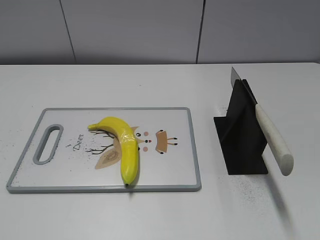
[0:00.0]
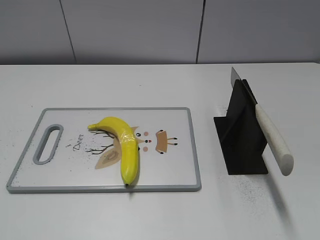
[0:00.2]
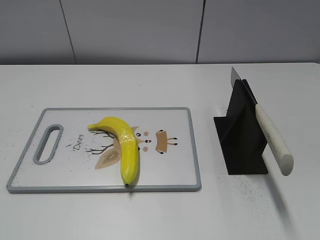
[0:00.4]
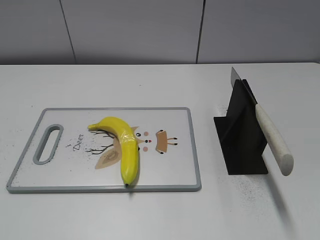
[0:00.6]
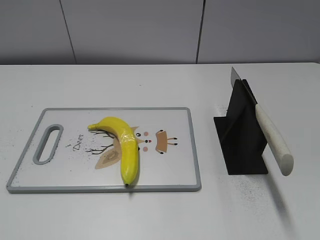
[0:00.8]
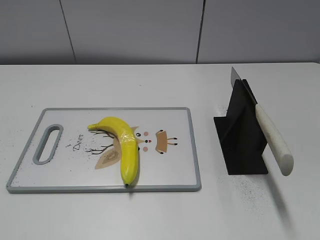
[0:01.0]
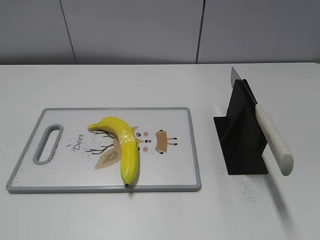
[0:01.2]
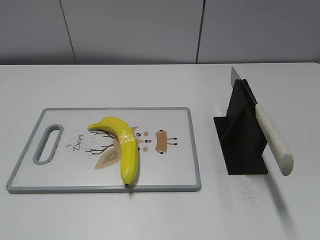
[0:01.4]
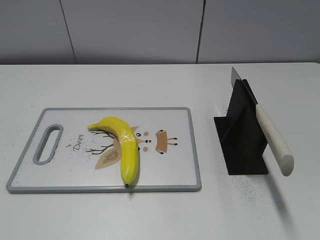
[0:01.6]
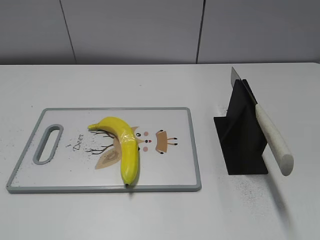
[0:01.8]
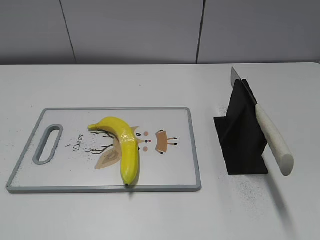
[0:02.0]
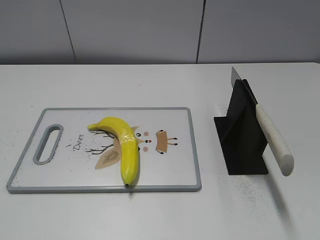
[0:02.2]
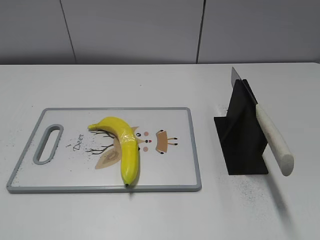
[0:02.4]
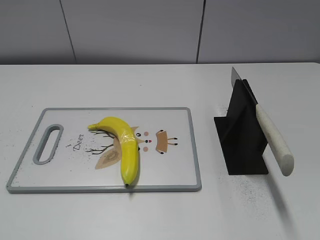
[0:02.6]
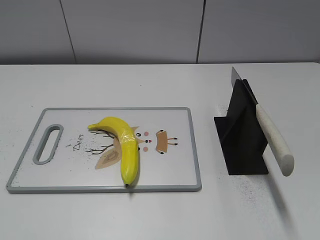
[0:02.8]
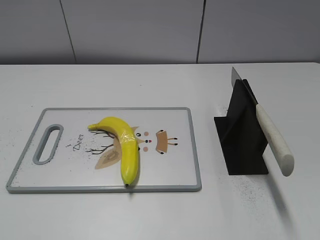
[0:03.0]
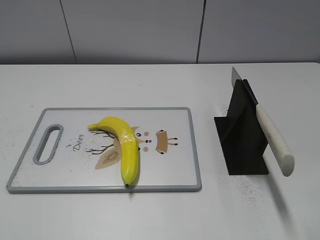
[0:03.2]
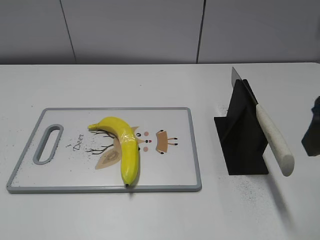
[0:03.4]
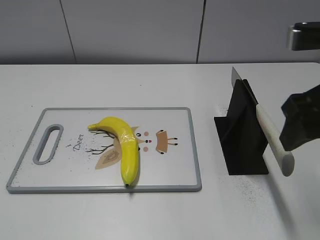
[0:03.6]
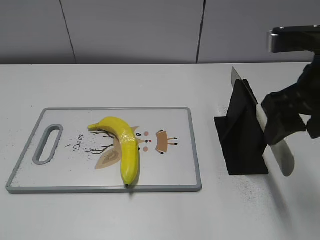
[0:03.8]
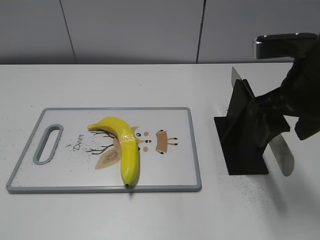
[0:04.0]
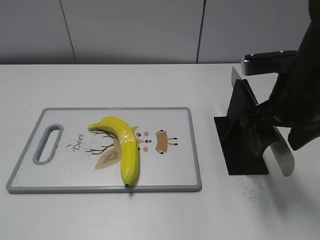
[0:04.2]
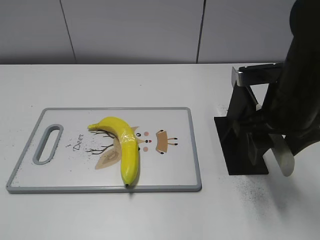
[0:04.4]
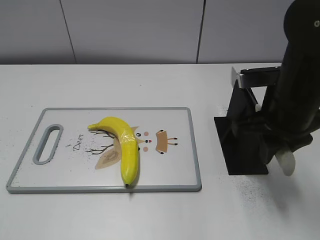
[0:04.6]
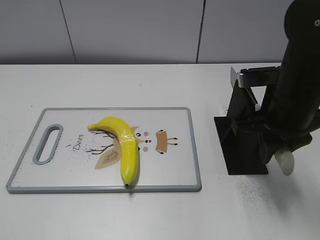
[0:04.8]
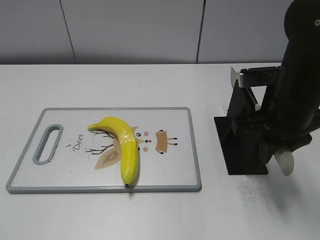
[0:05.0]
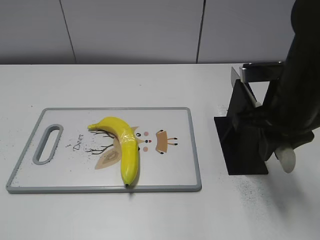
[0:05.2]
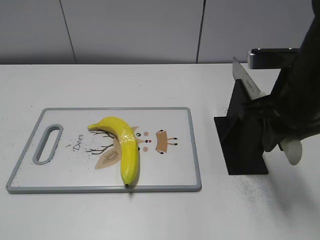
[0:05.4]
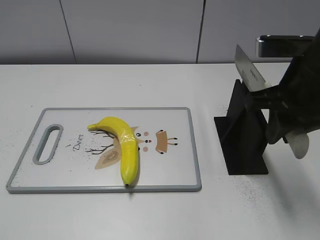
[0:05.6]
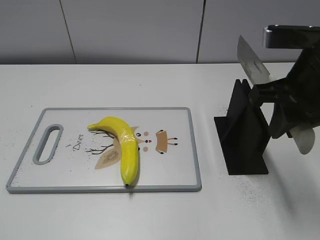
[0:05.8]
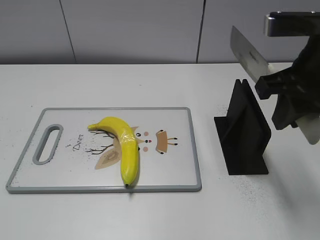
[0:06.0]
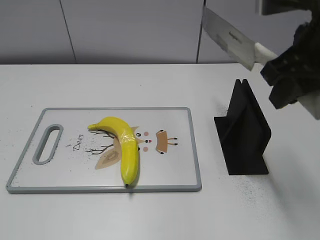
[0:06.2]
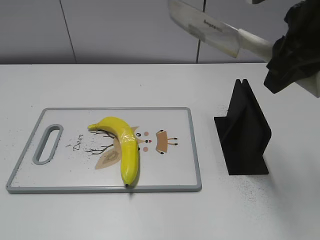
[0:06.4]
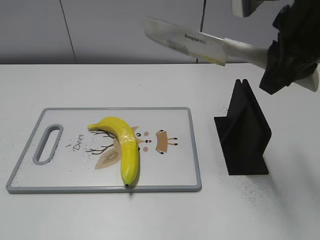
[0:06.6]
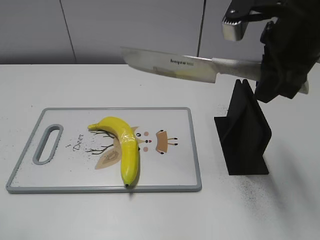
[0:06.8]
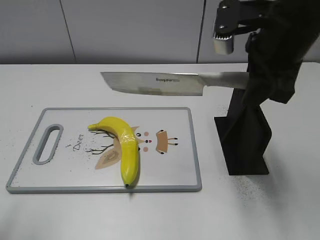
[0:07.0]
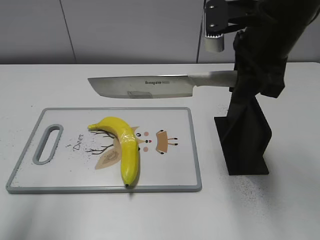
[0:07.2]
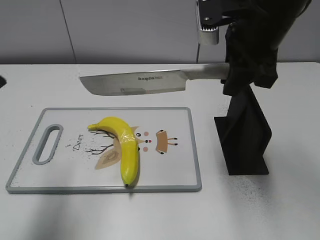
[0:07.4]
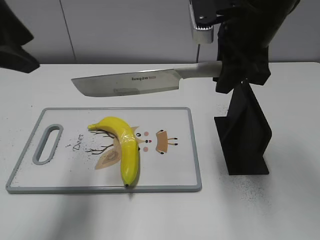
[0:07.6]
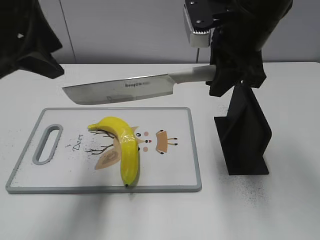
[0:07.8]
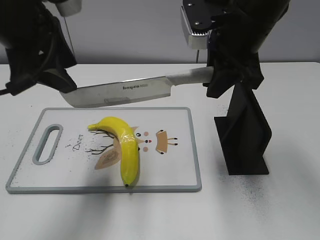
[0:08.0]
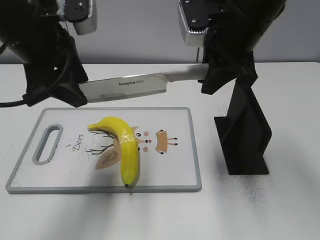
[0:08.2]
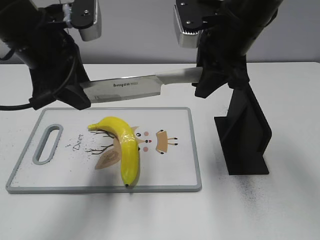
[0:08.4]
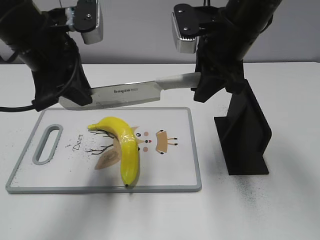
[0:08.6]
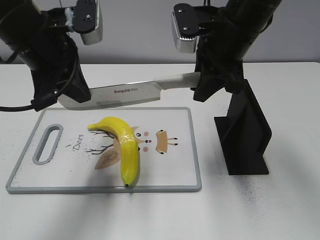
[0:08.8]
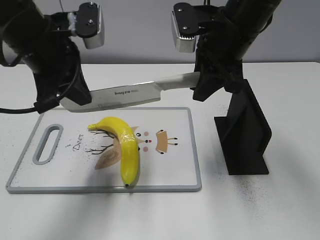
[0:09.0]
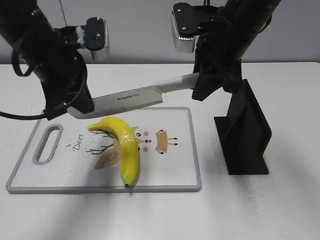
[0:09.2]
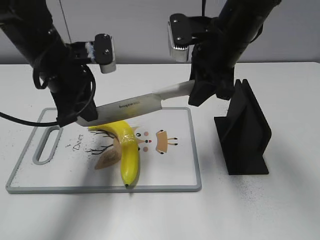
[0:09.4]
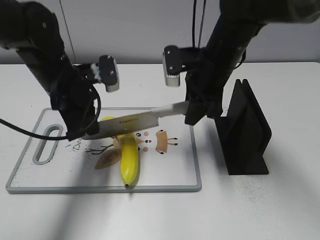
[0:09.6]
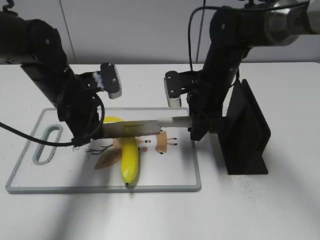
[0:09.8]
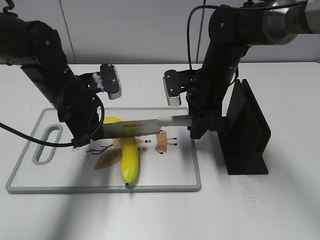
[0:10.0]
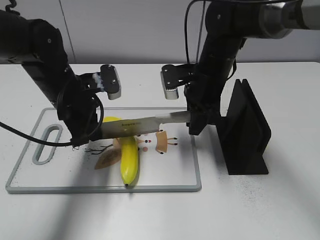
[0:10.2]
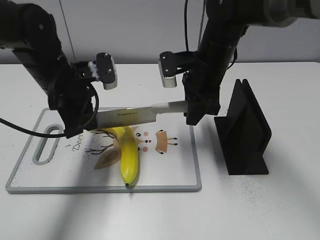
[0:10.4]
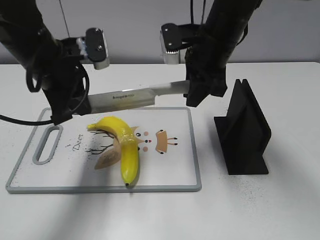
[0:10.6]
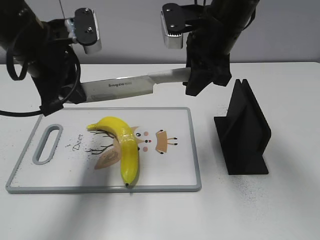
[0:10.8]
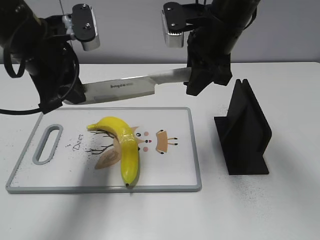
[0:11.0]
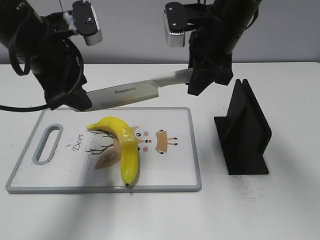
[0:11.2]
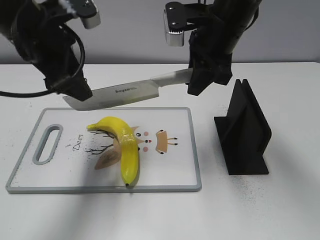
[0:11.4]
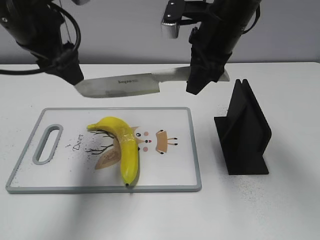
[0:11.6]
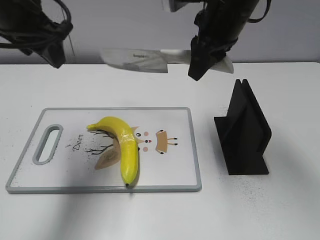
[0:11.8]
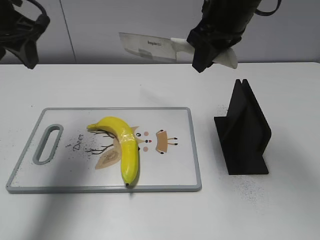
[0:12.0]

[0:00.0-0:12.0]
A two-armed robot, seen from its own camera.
Task of the whole recording: cut plastic banana.
Step, 0:00.0 to 0:05.8: Grab the knife handle with your right hand.
Step, 0:06.0 to 0:11.0: Lift the knife with your right hand.
0:03.0 to 0:04.4: The right gripper heads forward, downward and to the left, covering some 20 cm.
0:04.4 to 0:06.0: The right gripper shifts some 5 cm upward, and closes.
0:06.0 to 0:07.6: The left gripper shifts some 25 cm forward and to the right; the right gripper is displaced forward and to the left by roughly 10 cm.
0:07.6 to 0:09.0: The left gripper heads downward, forward and to the right, covering approximately 10 cm, and closes up.
0:09.0 to 0:10.4: Both grippers move downward, some 10 cm.
0:10.4 to 0:12.0: The right gripper is displaced upward by roughly 10 cm. The left gripper shifts some 15 cm upward and to the left, and opens.

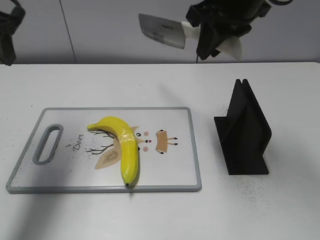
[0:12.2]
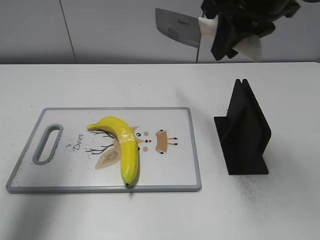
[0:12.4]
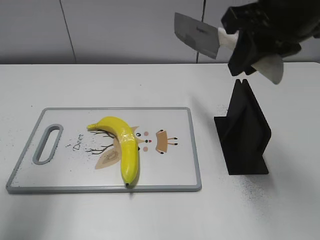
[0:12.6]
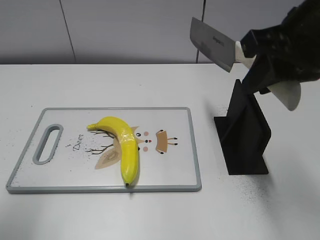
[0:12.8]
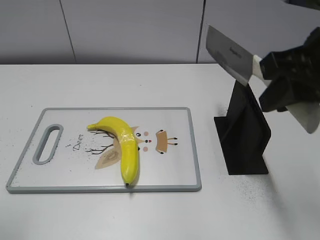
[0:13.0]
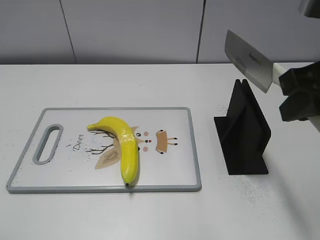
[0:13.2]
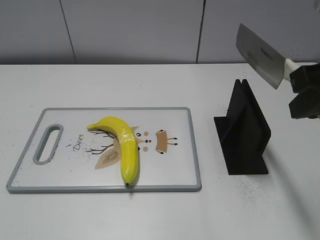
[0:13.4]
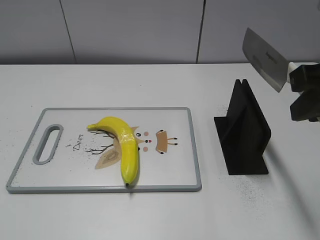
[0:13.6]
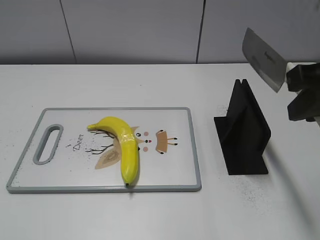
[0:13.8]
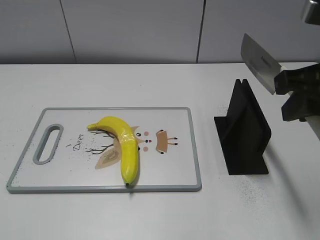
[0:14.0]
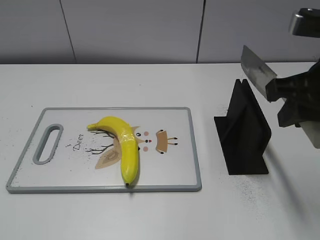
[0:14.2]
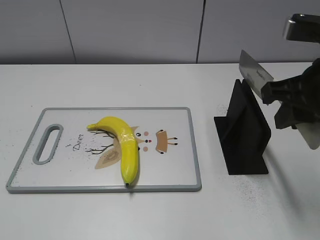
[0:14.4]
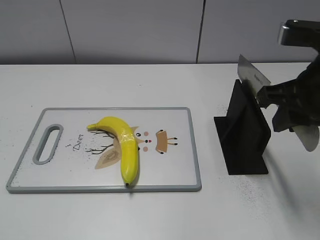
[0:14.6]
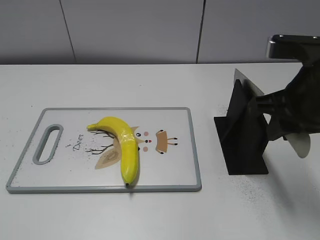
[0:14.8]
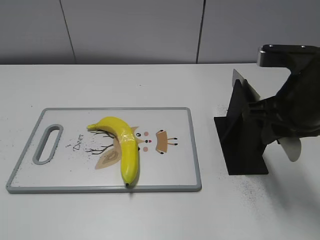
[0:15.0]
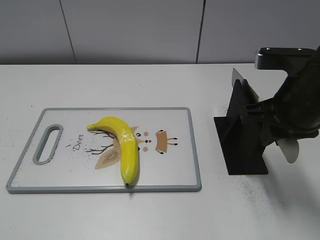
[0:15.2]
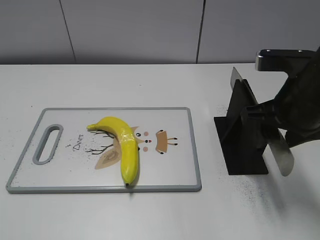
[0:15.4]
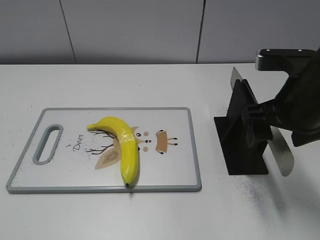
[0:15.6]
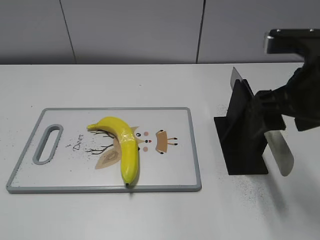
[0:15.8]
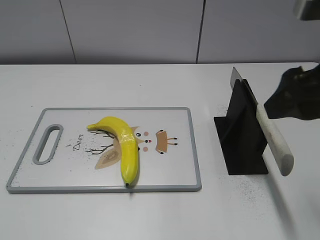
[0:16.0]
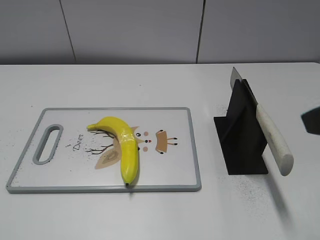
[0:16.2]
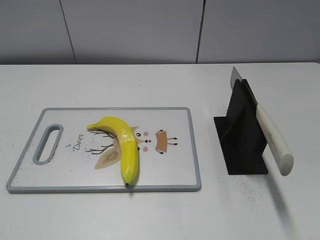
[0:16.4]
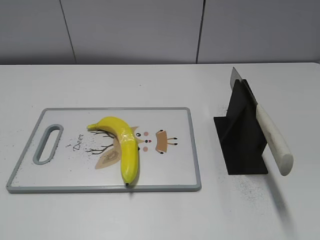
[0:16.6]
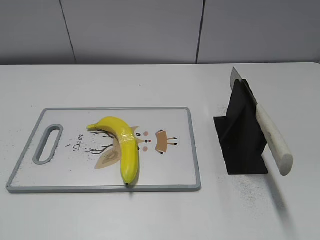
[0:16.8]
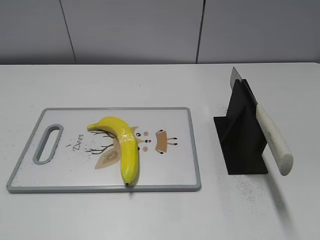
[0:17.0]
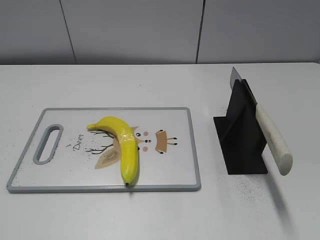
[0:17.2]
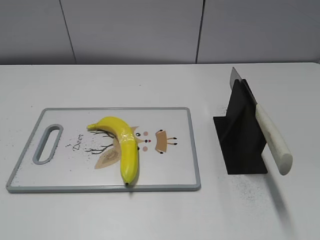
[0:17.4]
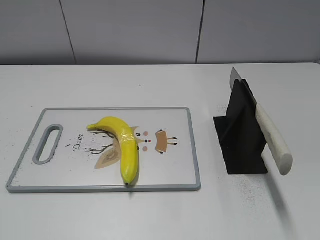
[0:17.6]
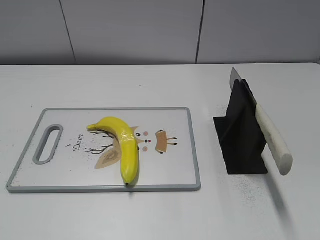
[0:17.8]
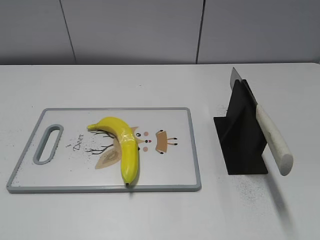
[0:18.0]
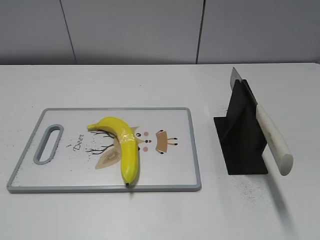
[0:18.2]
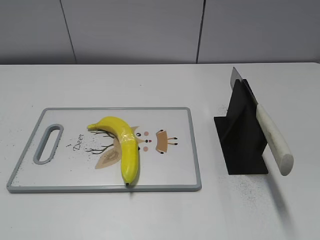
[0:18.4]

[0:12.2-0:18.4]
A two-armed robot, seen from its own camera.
Task of the whole recording: cut plastic banana.
Step, 0:12.6 to 0:13.6: Lift the knife with your right hand.
Step, 0:13.8 to 0:18.4: Place the knife on the storage rack with your right hand.
0:12.2 to 0:13.8: The right gripper is displaced backward and to the right by approximately 20 cm; the left gripper goes approximately 35 cm backward.
0:13.8 to 0:15.4: The right gripper travels downward and forward by some 10 cm, and opens its fingers.
0:15.4 to 0:16.8: The right gripper heads backward and to the right, covering some 25 cm, and opens up.

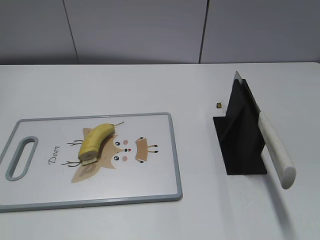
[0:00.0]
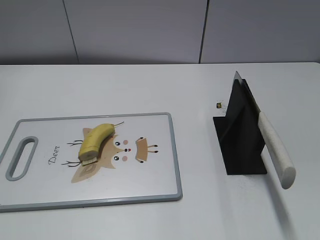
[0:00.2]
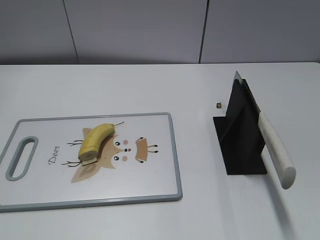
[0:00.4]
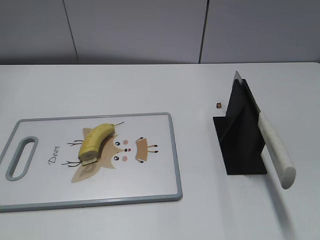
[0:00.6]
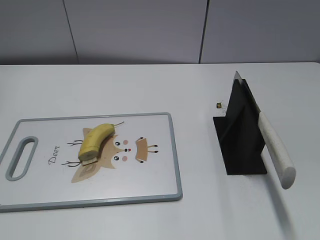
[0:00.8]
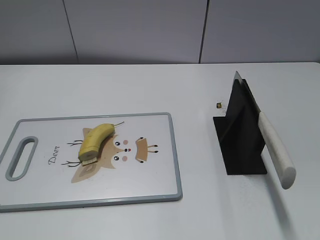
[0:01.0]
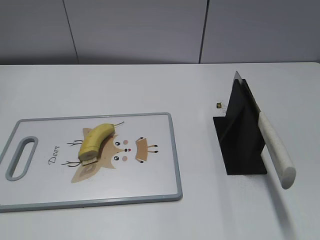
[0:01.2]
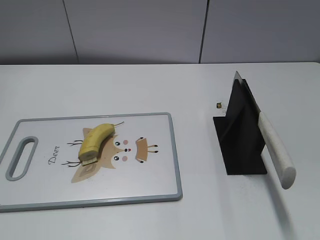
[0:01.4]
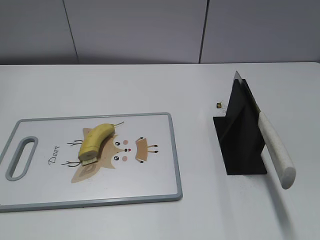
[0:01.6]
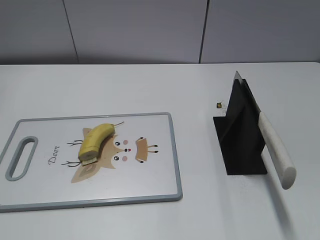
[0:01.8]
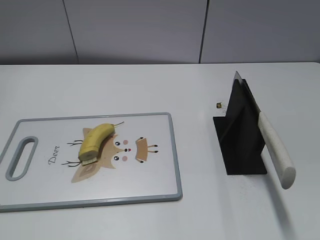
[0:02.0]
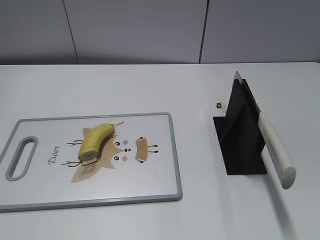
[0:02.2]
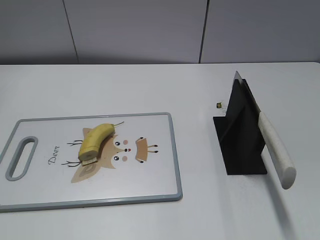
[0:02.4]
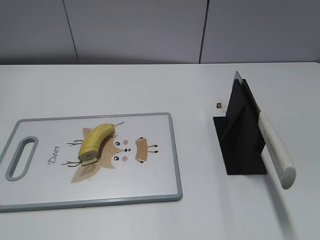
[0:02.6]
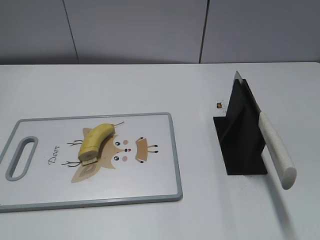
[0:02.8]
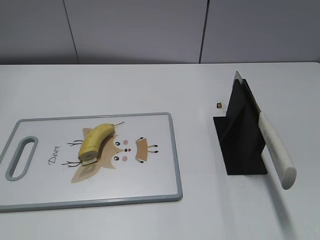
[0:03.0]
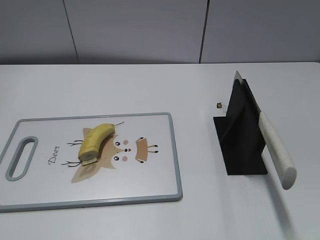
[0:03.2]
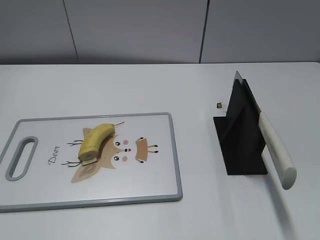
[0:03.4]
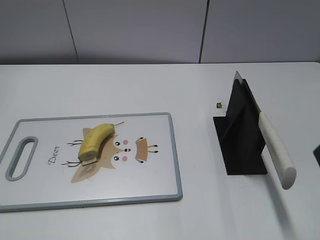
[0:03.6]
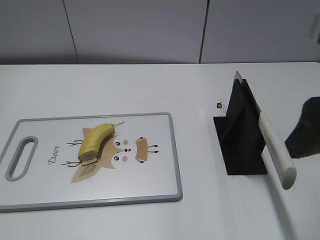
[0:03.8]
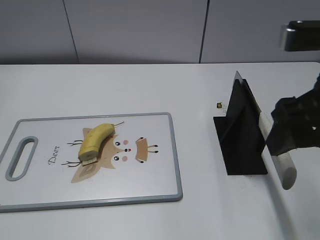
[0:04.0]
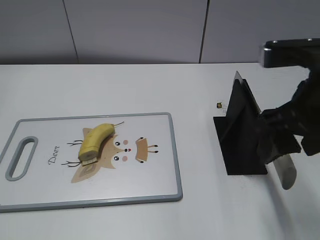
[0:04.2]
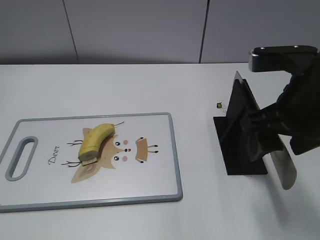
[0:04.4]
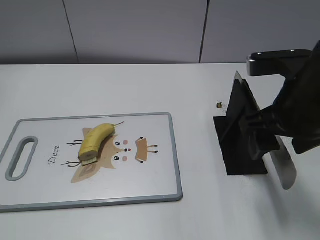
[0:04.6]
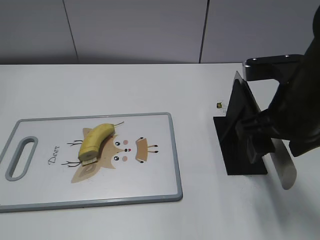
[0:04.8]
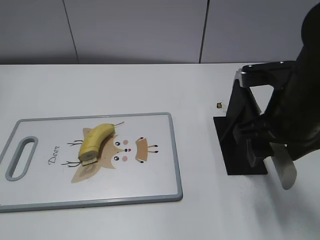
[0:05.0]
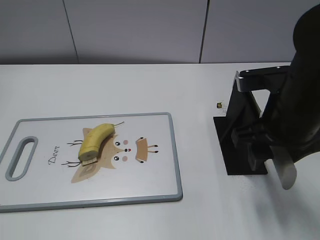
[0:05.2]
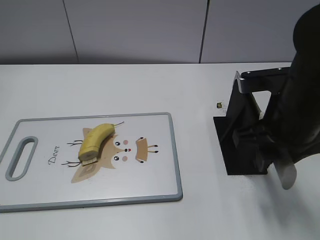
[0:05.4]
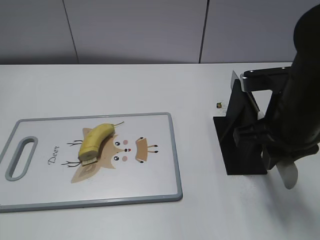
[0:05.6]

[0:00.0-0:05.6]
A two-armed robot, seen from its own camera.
Task of the whole recording: cut banana.
0:02.8 to 0:04.2: The right gripper shifts some 20 cm forward, to the left and downward.
0:04.2 to 0:05.6: The right gripper moves downward, some 5 cm, and closes.
